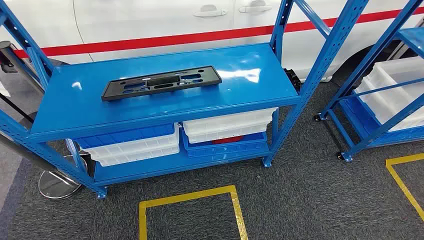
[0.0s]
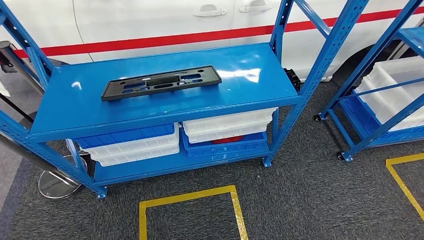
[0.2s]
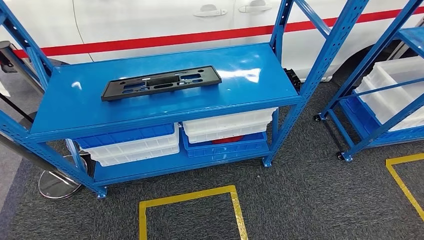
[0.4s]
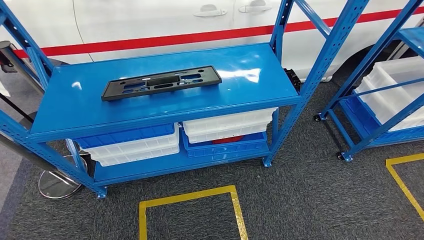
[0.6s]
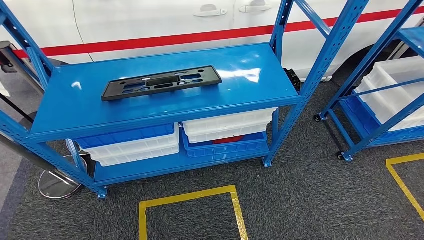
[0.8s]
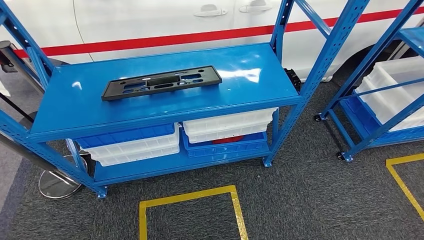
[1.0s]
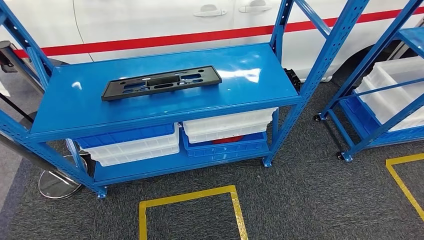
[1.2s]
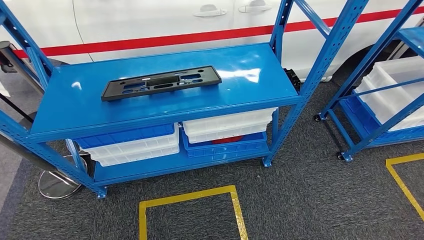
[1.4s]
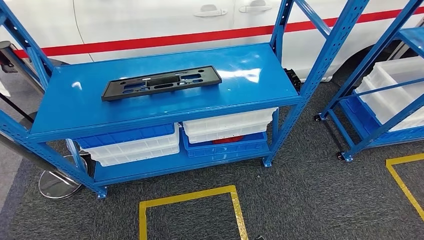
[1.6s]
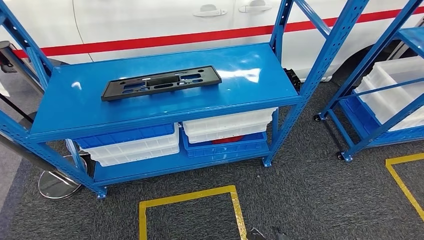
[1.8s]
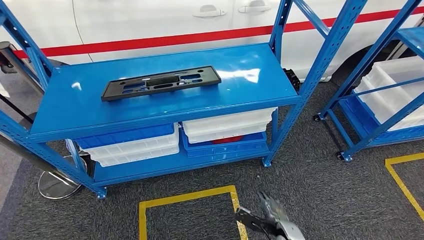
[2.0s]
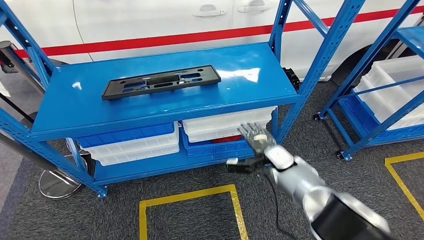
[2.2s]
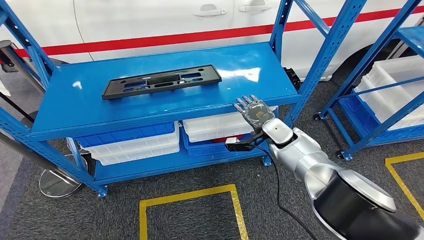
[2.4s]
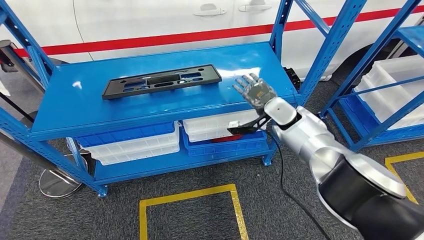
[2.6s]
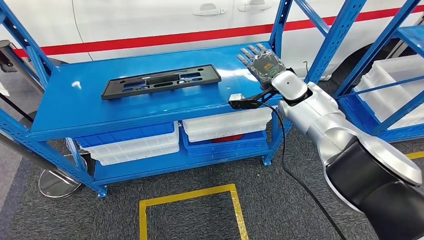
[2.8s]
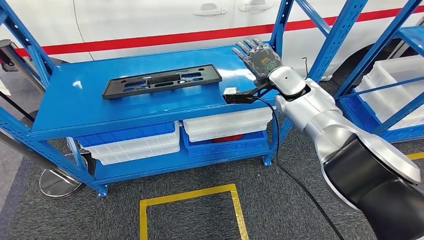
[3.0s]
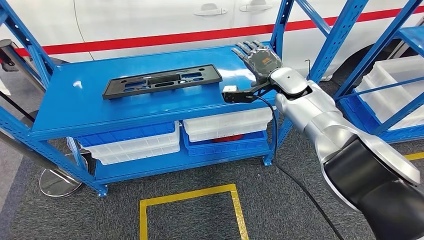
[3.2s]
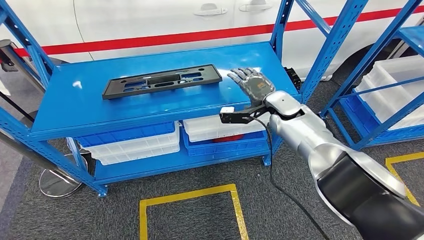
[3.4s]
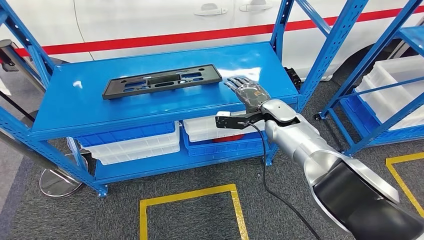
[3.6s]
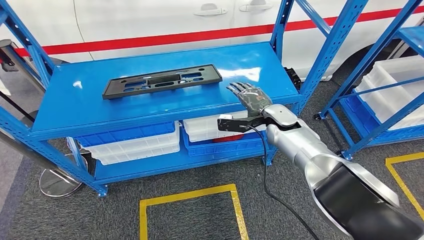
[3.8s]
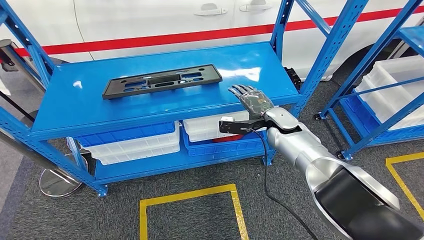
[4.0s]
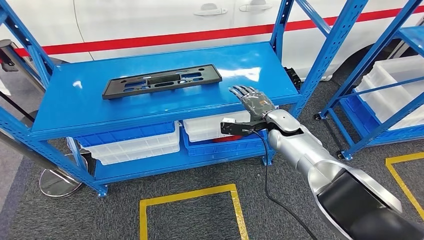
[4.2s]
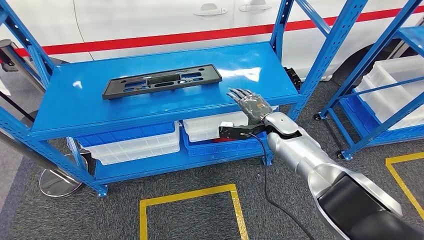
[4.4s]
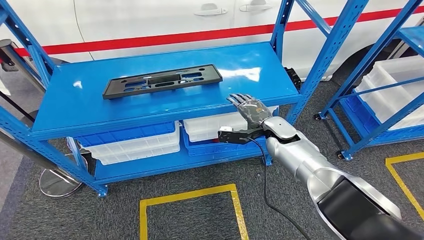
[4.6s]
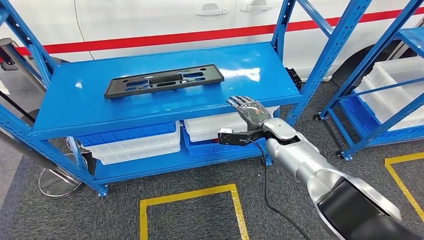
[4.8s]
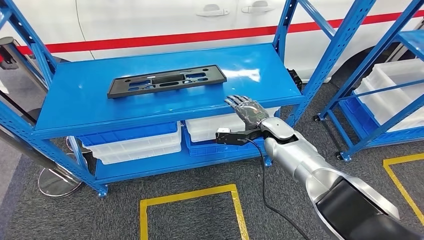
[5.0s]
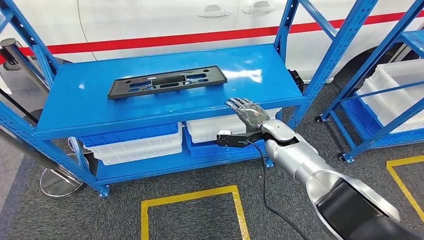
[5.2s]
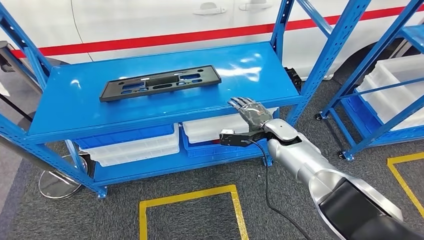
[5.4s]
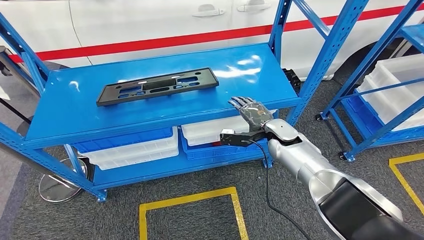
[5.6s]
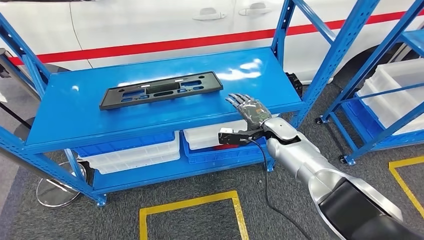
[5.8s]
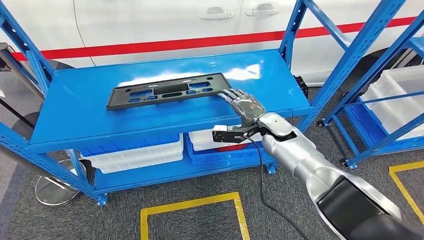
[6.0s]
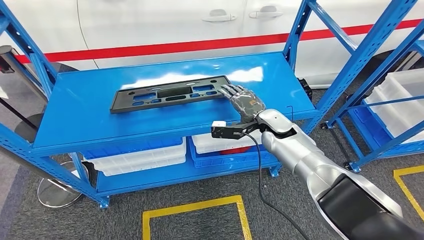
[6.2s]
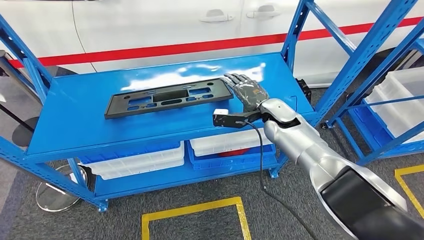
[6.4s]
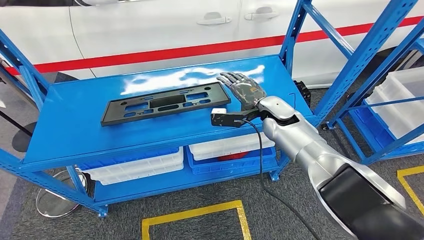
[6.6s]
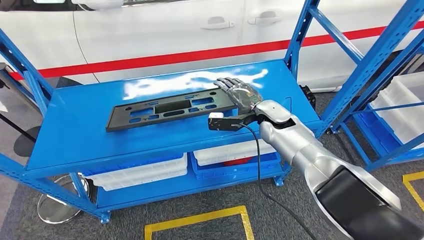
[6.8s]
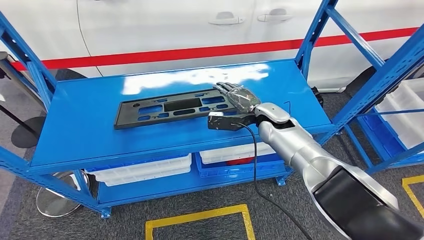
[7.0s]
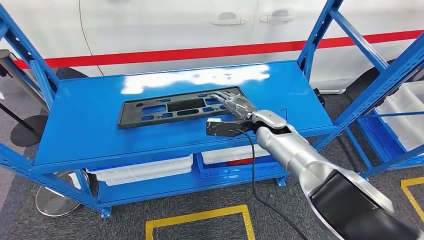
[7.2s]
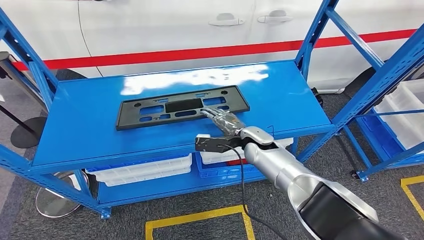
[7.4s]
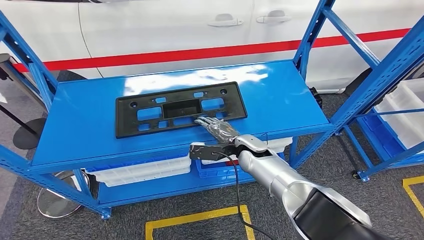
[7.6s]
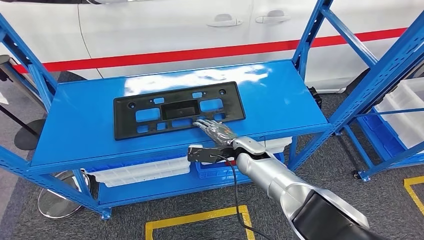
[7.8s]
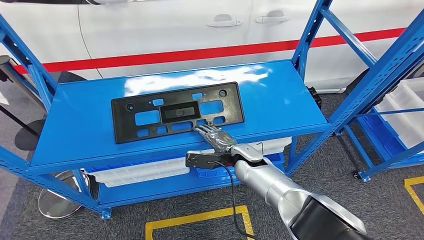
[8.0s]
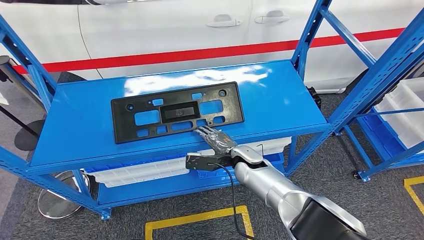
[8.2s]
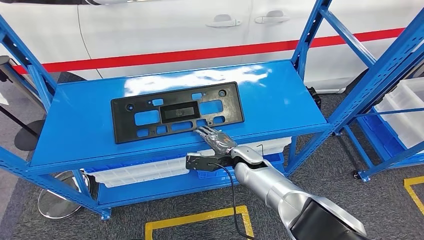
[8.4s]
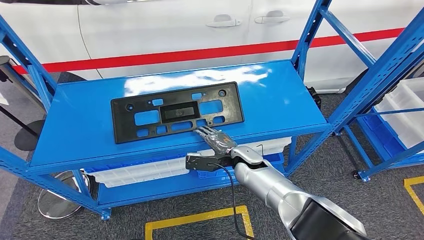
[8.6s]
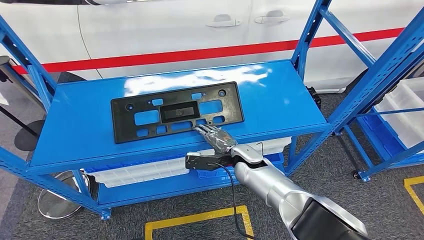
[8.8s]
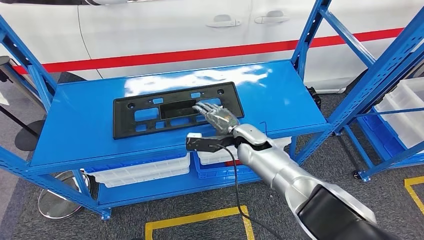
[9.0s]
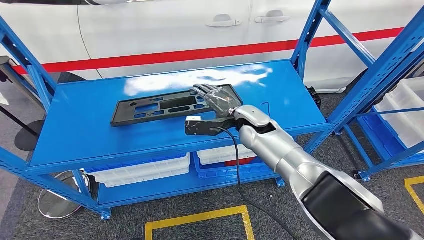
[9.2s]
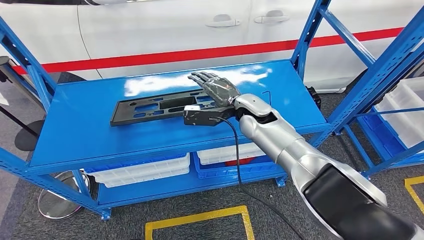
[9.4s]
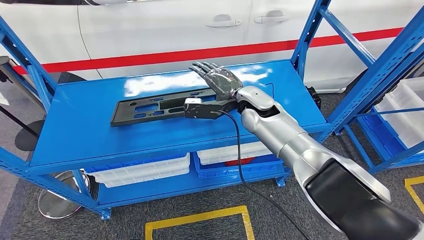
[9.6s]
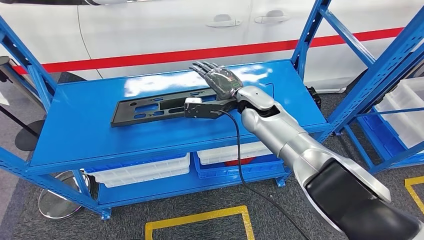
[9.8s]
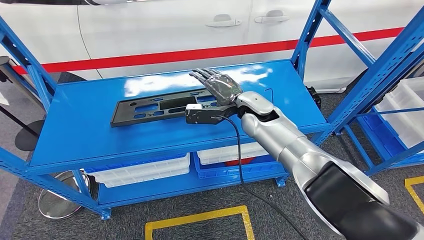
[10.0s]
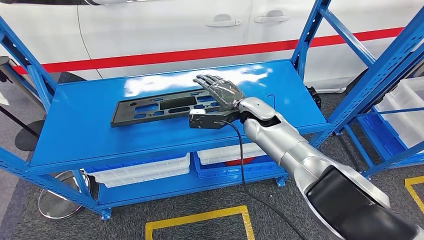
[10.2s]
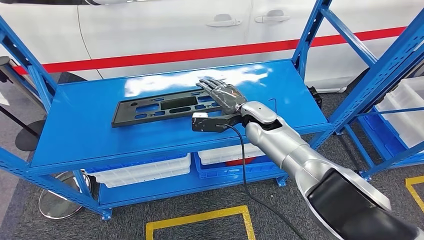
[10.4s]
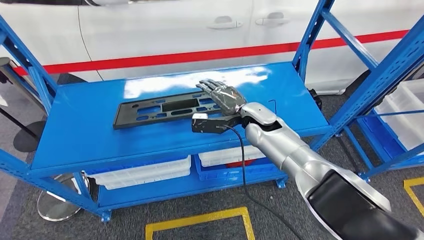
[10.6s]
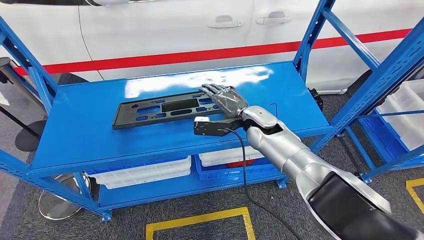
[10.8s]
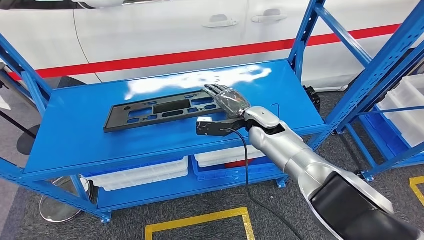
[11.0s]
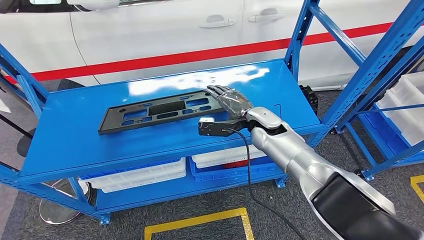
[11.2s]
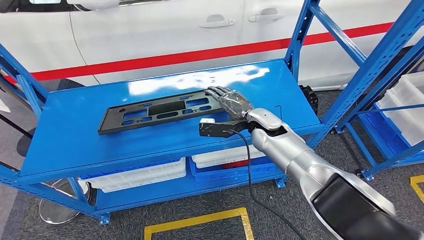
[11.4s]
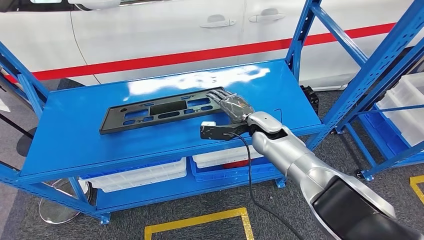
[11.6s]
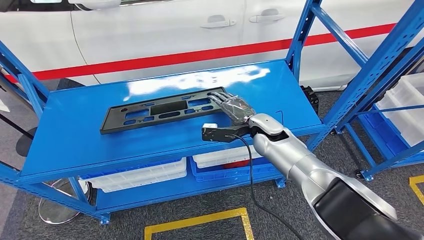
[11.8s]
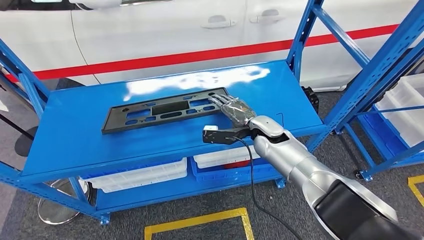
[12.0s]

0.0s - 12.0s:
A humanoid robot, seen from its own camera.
3.0s - 4.4s: The right hand is displaced downward by approximately 10 cm.
7.6s - 9.0s: The hands stay close to where they were, moving slightly.
9.0s - 10.4s: The right hand heads upward, covering some 5 cm.

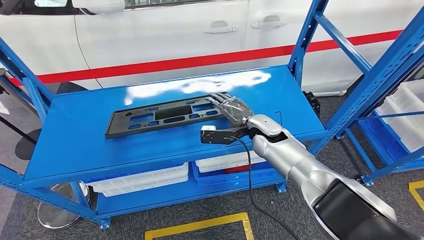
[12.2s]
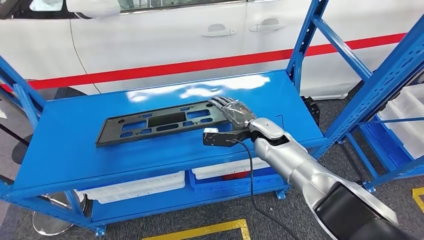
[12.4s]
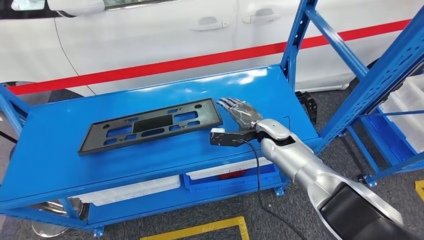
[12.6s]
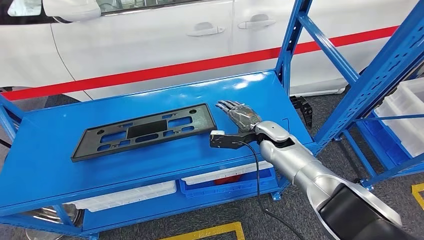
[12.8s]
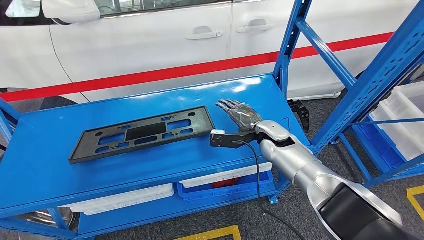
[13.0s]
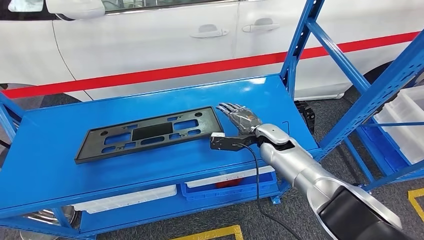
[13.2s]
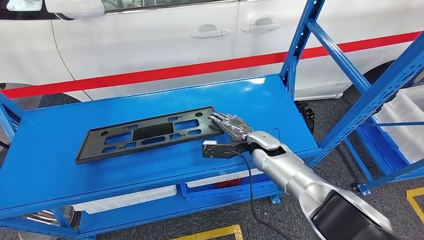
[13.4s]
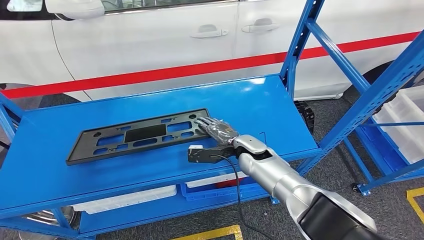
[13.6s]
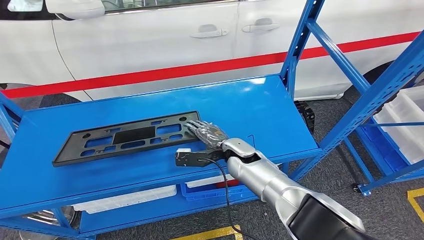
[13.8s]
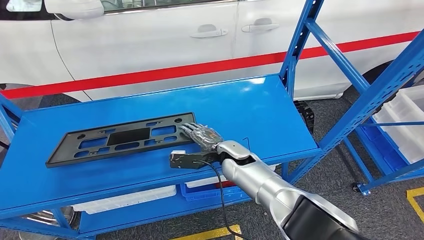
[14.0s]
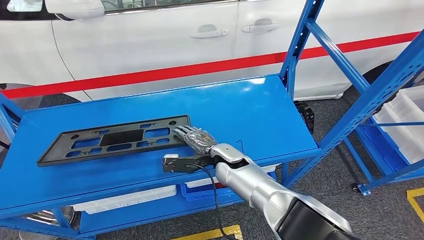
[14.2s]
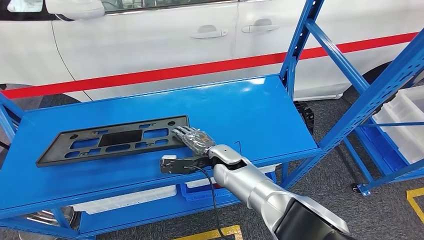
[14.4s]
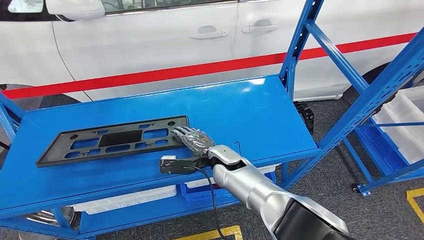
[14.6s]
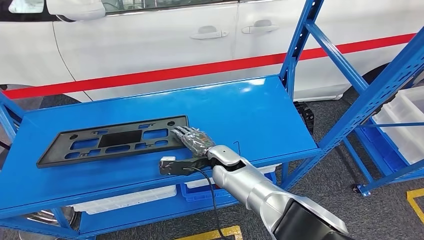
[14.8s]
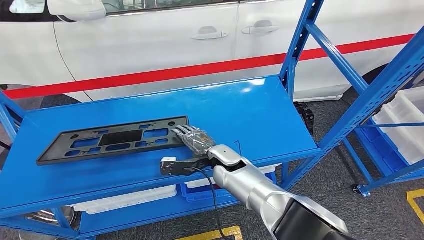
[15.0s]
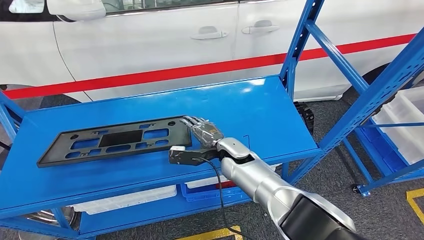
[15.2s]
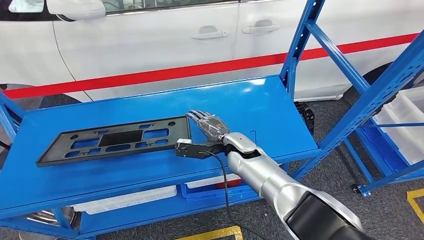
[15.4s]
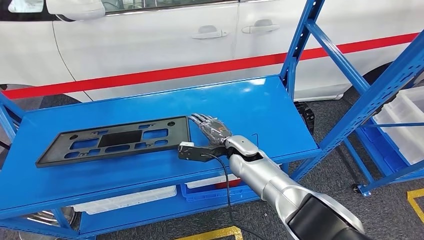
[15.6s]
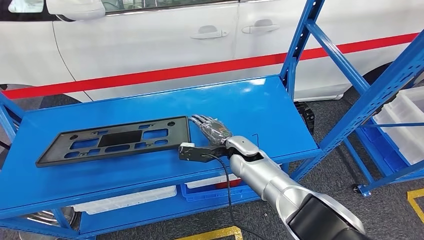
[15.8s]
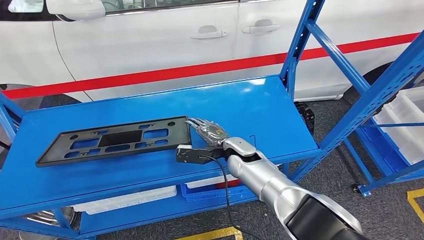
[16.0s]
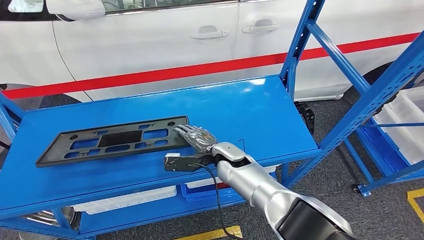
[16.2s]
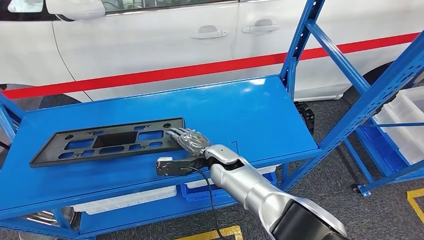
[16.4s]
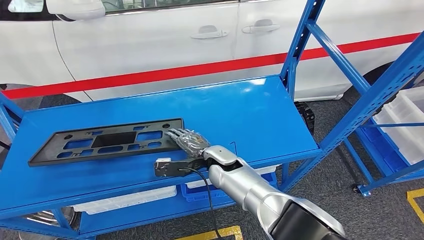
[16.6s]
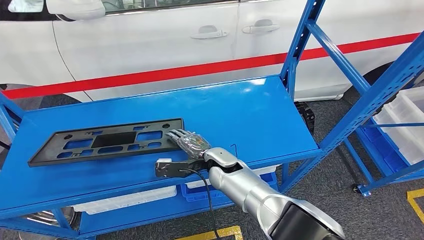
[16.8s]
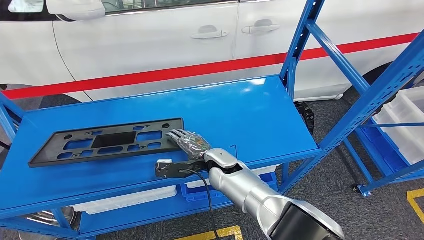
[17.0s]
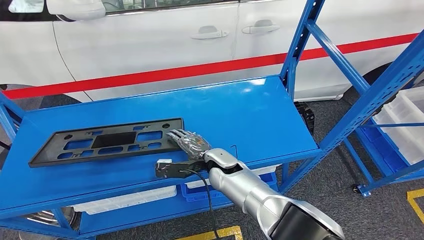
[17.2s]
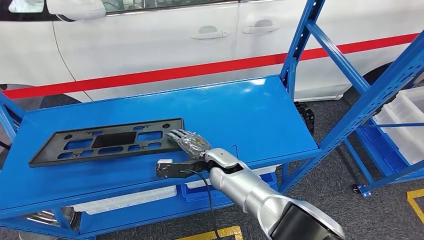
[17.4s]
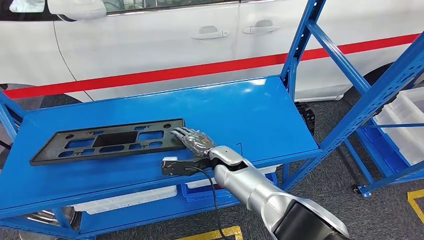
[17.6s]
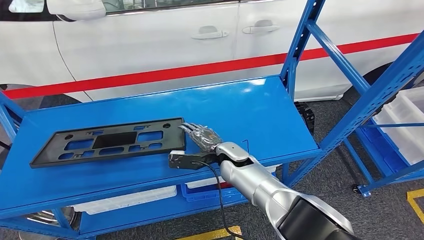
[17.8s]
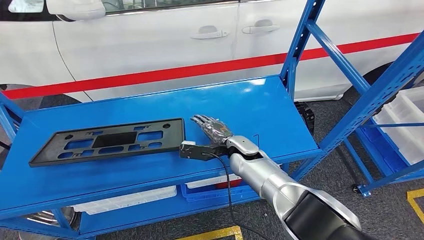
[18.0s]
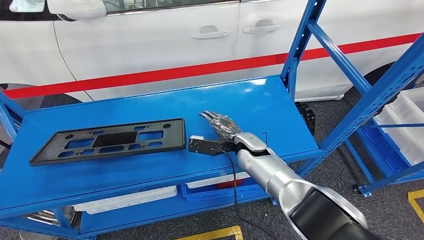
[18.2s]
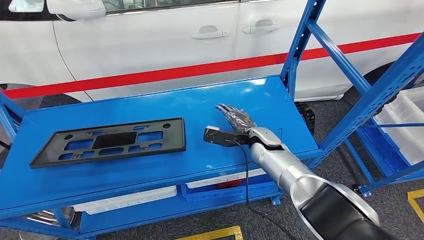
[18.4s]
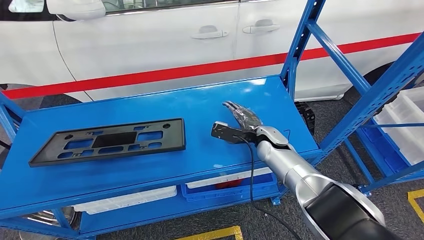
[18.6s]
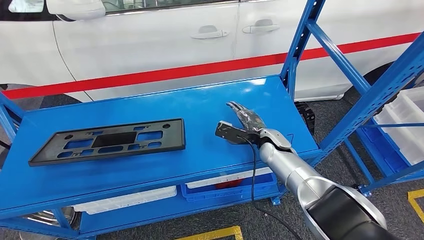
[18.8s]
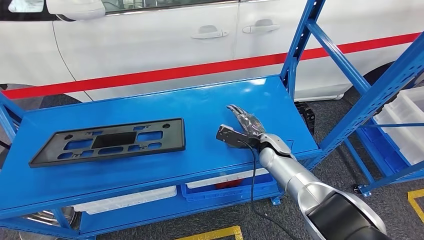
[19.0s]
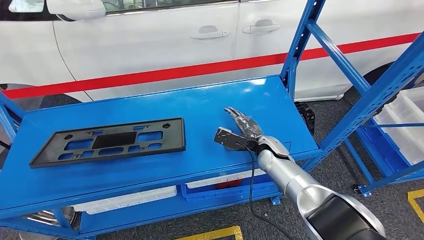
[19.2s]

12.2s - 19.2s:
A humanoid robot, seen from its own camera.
13.6s - 15.0s: The right hand heads to the left, covering roughly 5 cm.
15.0s - 17.8s: The hands move only a little.
17.8s - 19.2s: The right hand goes roughly 10 cm to the right.
